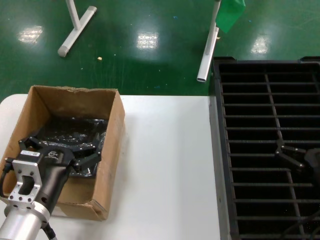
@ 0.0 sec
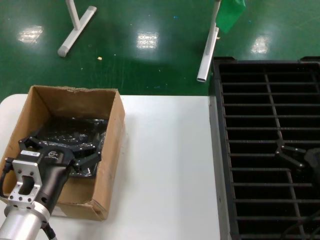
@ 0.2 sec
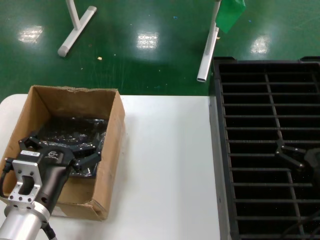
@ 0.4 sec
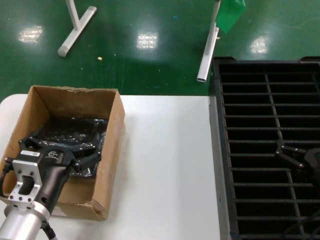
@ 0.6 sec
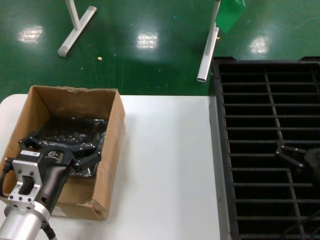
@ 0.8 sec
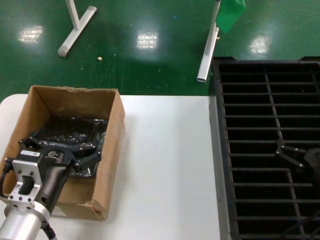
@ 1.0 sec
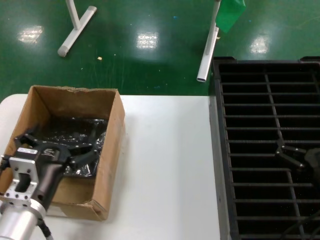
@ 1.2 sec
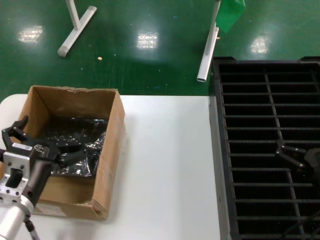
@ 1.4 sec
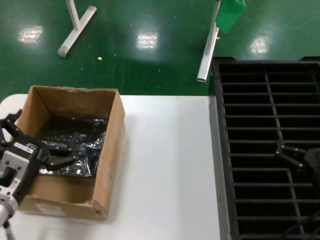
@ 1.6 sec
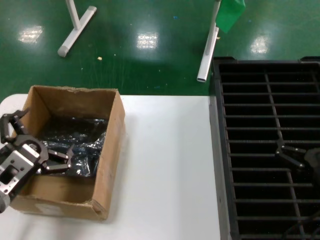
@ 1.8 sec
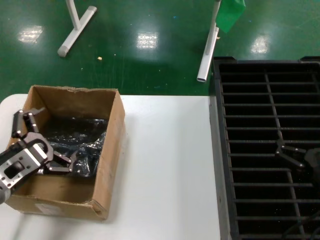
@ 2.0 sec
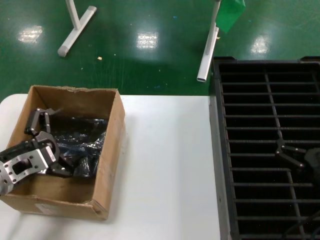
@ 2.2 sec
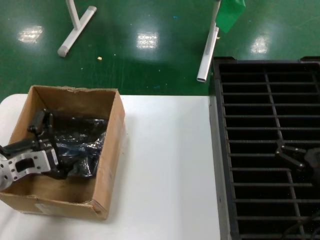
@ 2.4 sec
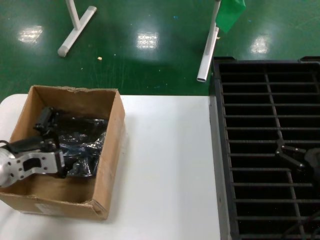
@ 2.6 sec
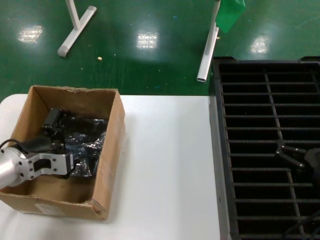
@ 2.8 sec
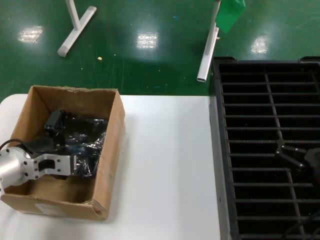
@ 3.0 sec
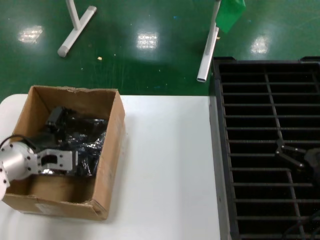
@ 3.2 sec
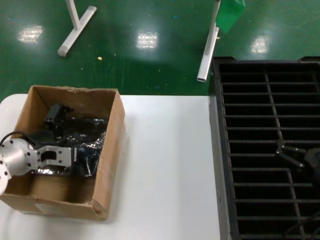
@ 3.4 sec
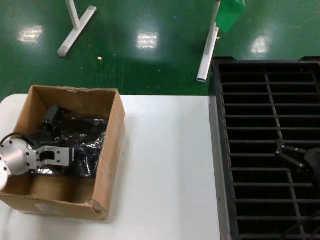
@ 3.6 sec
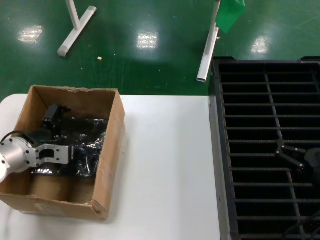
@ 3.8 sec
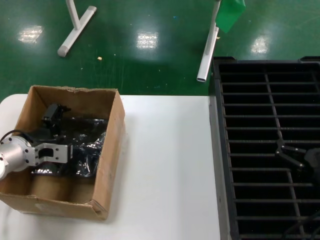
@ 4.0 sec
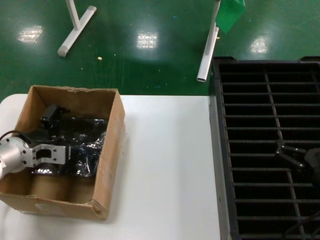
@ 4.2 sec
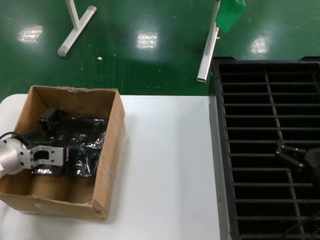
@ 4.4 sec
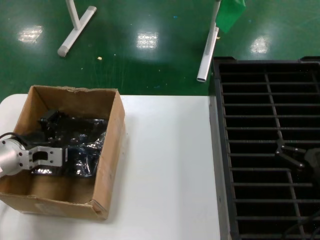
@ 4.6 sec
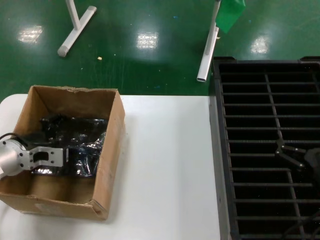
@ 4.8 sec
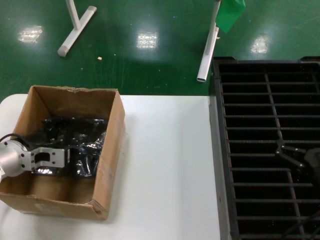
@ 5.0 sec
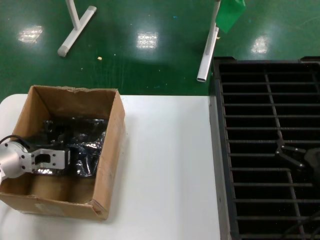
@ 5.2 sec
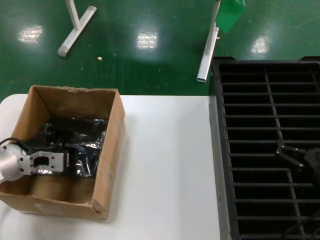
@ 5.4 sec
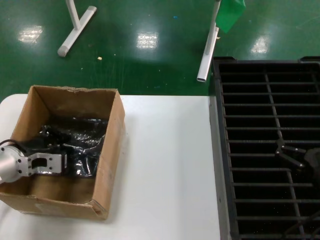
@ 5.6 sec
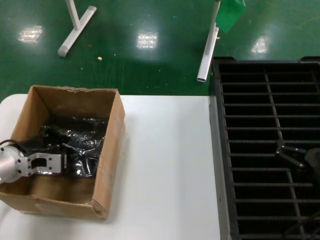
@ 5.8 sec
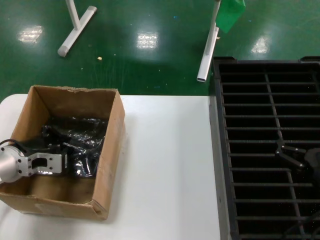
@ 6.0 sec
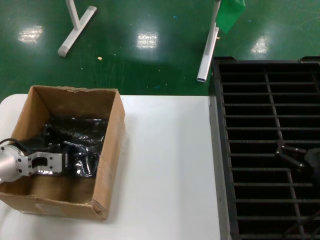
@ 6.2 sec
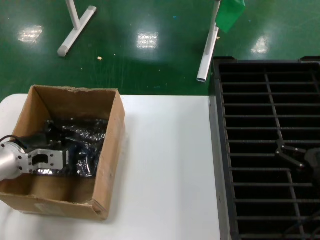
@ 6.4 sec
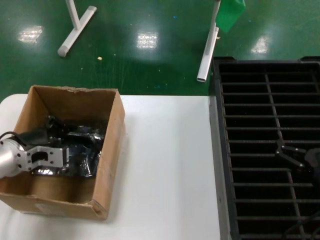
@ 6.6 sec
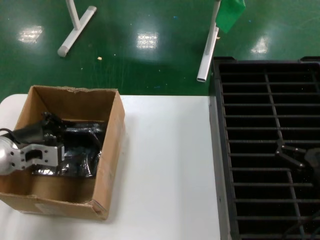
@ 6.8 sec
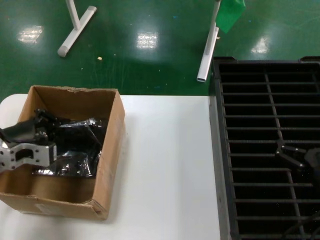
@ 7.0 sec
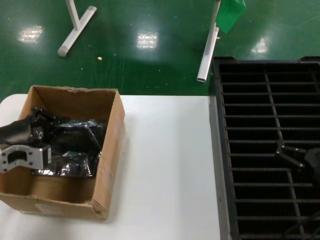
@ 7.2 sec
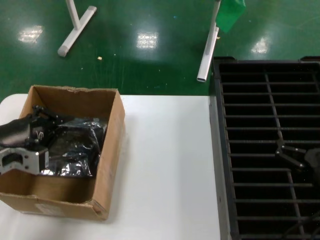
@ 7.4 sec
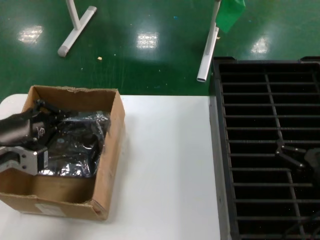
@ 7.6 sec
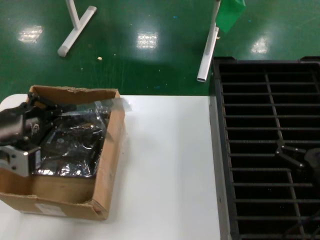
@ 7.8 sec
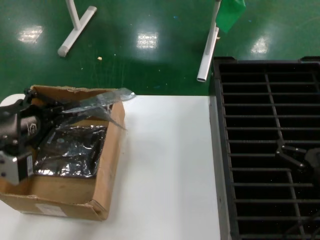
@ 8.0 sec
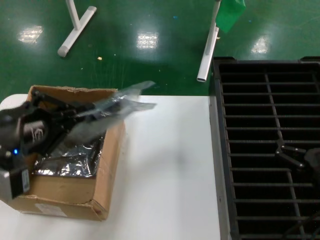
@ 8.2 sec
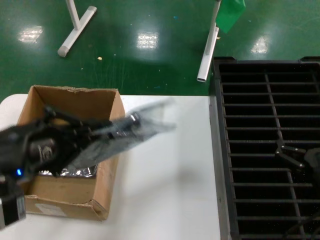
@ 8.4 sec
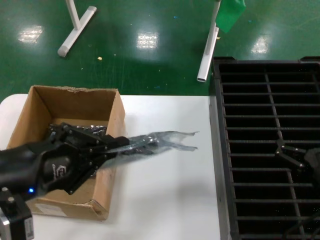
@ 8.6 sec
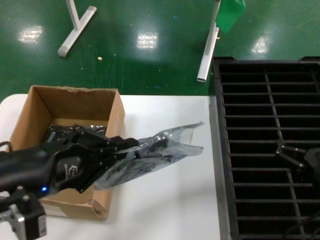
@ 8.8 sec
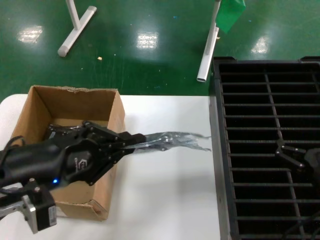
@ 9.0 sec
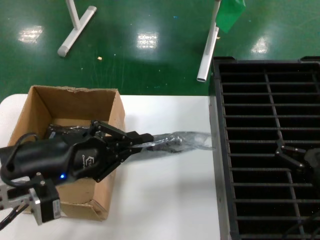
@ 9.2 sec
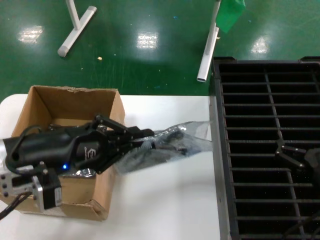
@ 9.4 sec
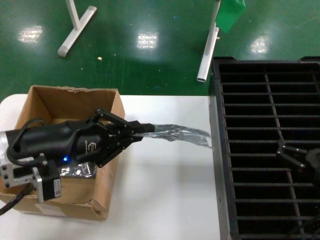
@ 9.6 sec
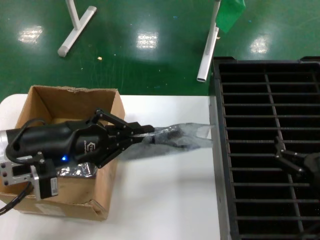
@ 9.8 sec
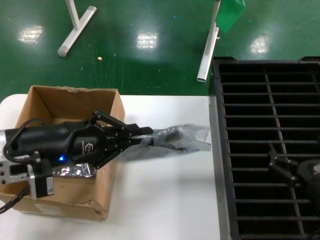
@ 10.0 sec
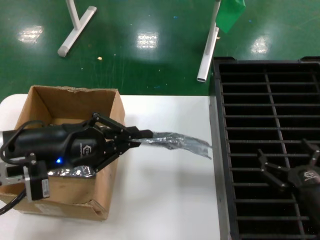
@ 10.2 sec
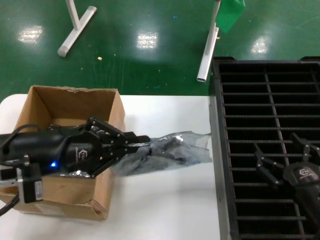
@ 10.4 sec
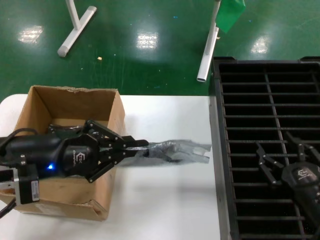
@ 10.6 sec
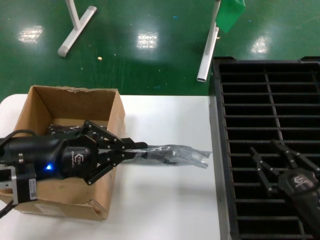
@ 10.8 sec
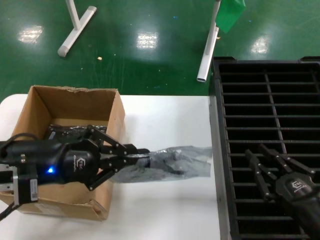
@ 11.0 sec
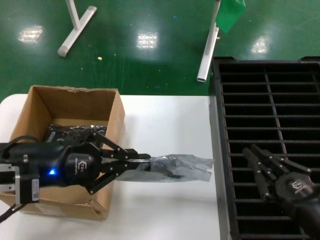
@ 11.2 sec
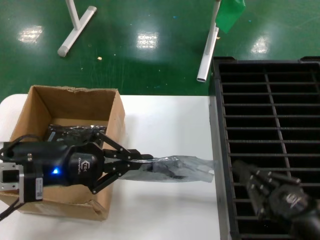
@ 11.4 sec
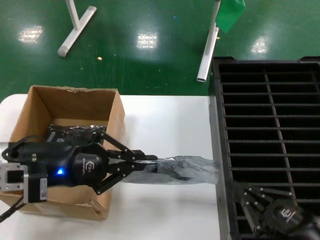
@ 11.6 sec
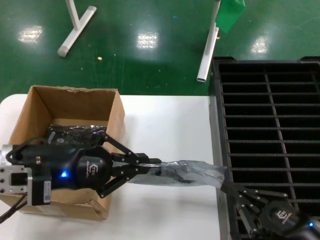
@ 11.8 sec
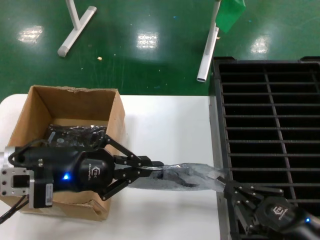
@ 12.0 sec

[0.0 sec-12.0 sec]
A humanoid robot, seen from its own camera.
Task of the whole recording: take out graphics card from box remove packaging put into black container.
Step, 0.0 sec to 5.8 sec: Grasp the bag.
Step, 6.0 sec to 9.8 sec: Lift the bag.
1.6 sec to 3.0 sec: The left hand travels forward by approximately 10 cm.
3.0 sec to 4.4 sec: The left hand shifts by approximately 5 cm.
4.4 sec to 6.0 sec: There are only small adjustments of the hands.
6.0 sec to 7.6 sec: The left hand goes approximately 15 cm upward and backward.
7.6 sec to 9.0 sec: The left hand heads backward, covering about 5 cm.
9.0 sec to 10.4 sec: The left hand goes about 10 cm forward.

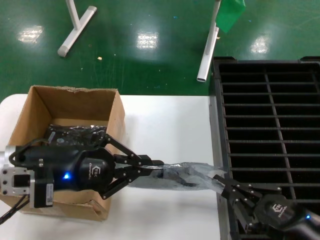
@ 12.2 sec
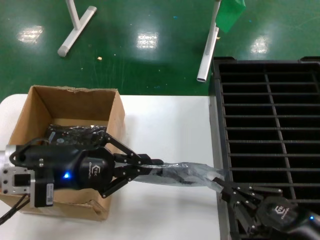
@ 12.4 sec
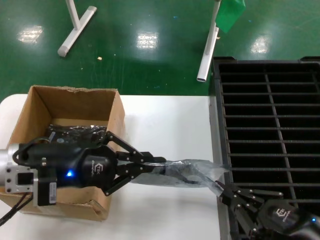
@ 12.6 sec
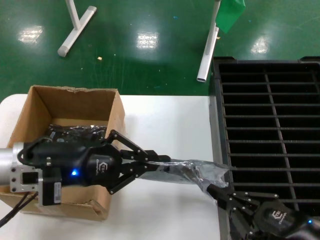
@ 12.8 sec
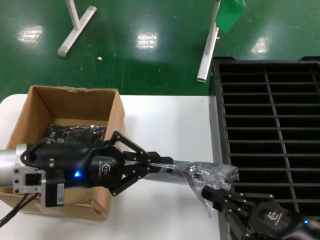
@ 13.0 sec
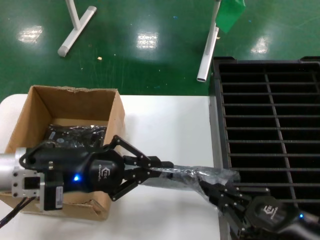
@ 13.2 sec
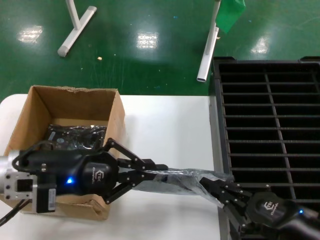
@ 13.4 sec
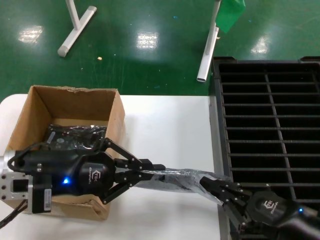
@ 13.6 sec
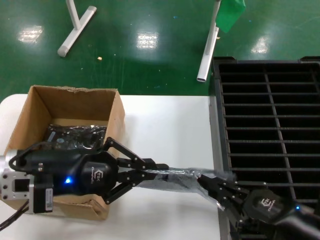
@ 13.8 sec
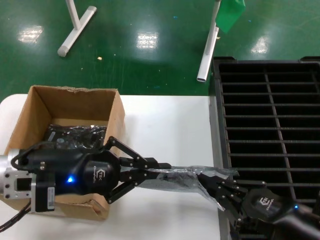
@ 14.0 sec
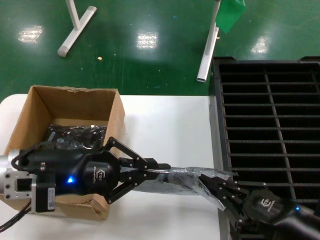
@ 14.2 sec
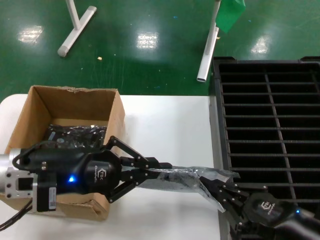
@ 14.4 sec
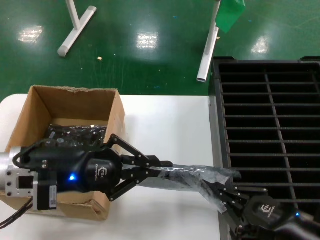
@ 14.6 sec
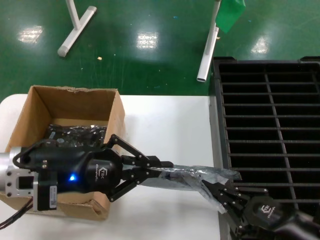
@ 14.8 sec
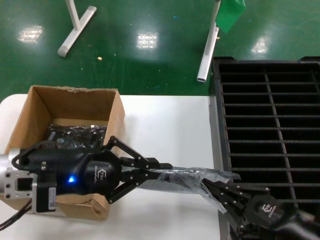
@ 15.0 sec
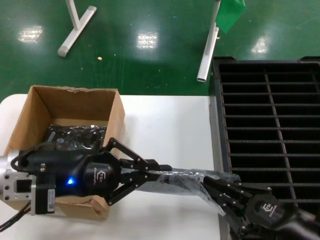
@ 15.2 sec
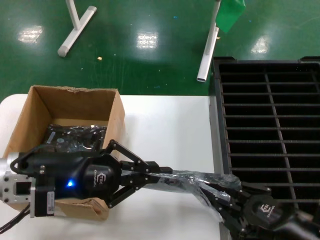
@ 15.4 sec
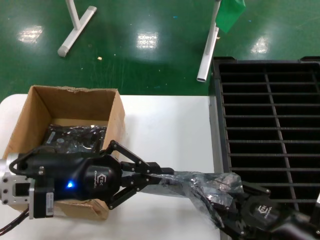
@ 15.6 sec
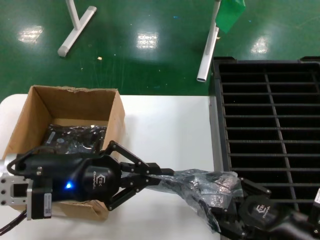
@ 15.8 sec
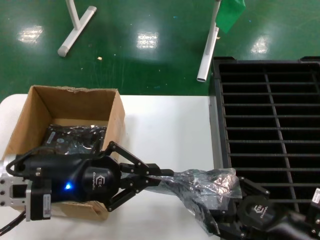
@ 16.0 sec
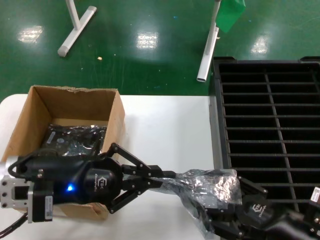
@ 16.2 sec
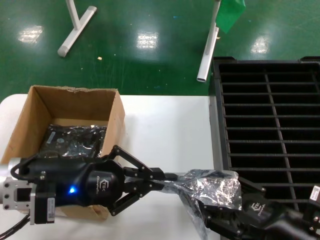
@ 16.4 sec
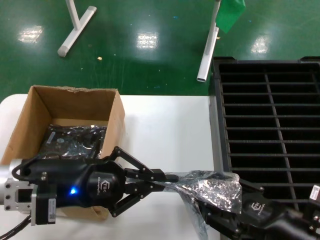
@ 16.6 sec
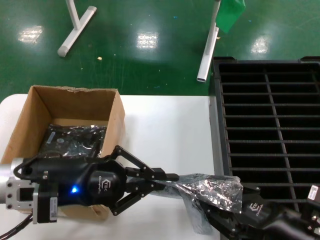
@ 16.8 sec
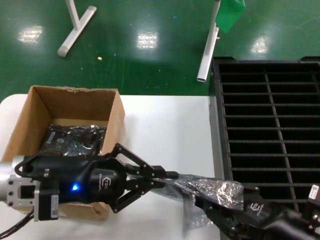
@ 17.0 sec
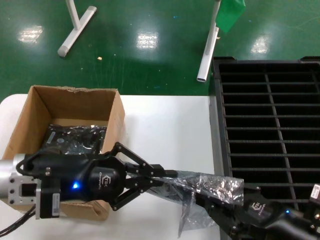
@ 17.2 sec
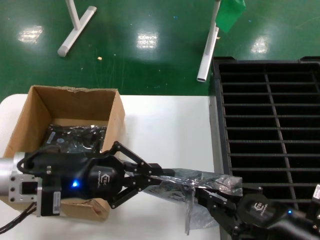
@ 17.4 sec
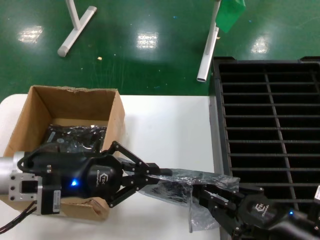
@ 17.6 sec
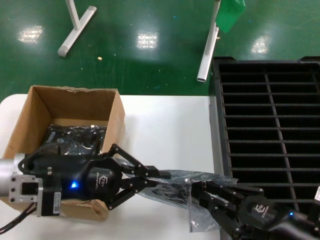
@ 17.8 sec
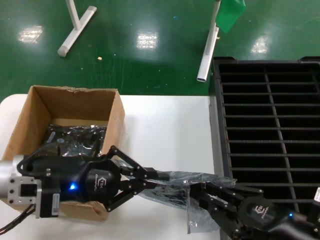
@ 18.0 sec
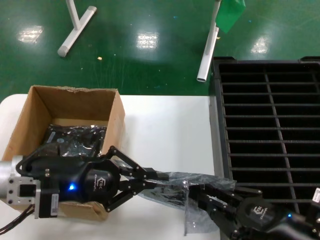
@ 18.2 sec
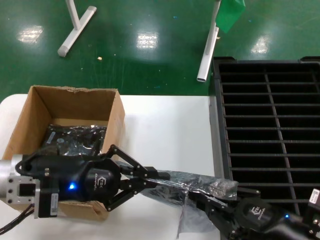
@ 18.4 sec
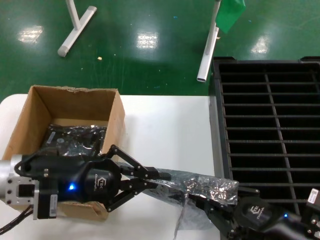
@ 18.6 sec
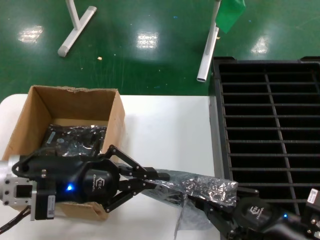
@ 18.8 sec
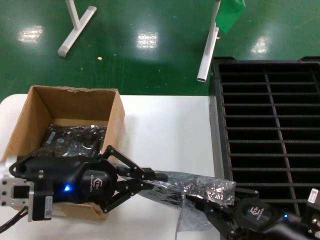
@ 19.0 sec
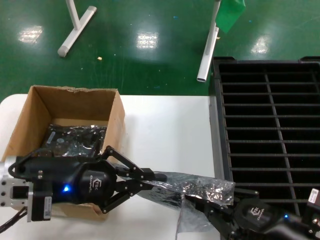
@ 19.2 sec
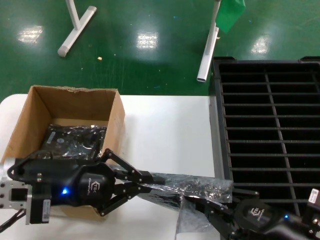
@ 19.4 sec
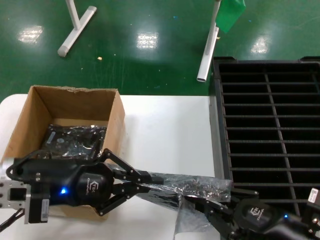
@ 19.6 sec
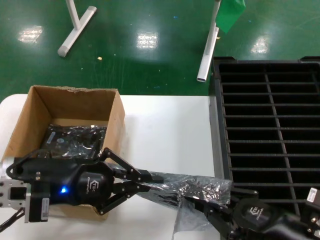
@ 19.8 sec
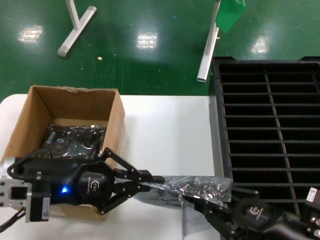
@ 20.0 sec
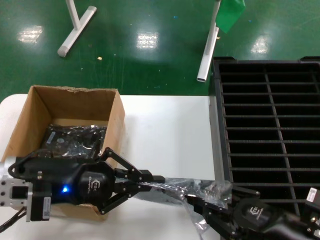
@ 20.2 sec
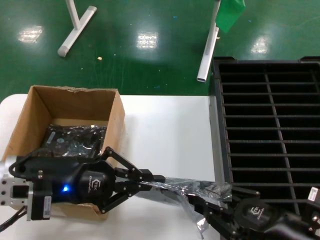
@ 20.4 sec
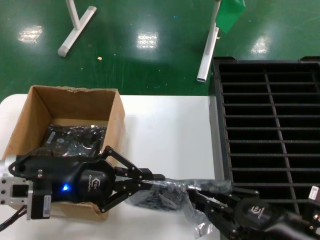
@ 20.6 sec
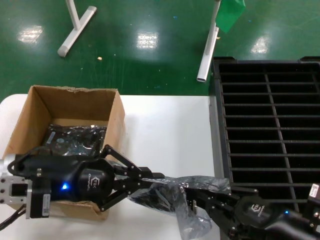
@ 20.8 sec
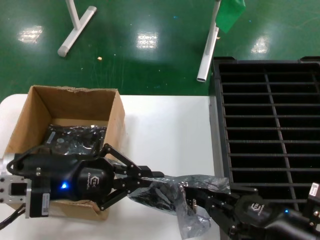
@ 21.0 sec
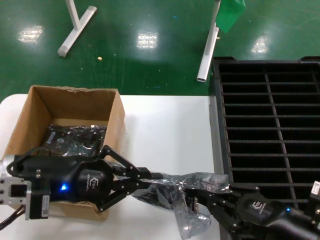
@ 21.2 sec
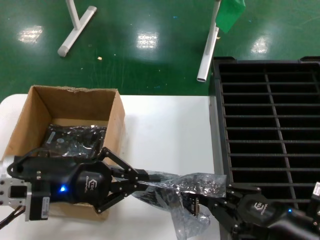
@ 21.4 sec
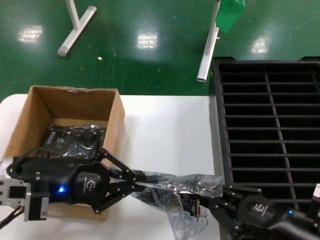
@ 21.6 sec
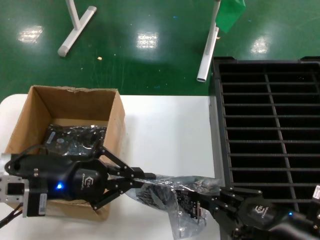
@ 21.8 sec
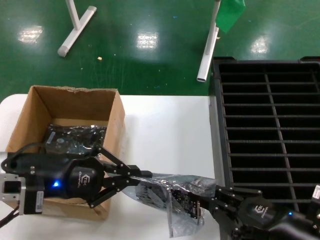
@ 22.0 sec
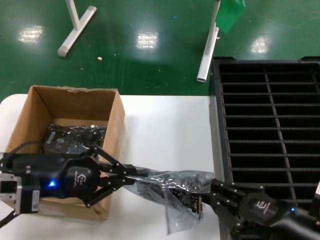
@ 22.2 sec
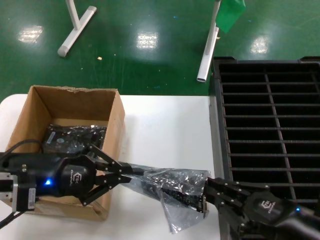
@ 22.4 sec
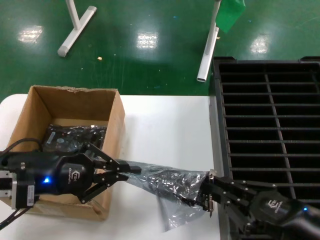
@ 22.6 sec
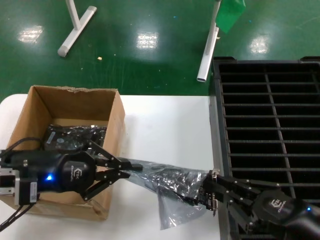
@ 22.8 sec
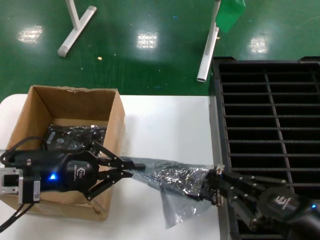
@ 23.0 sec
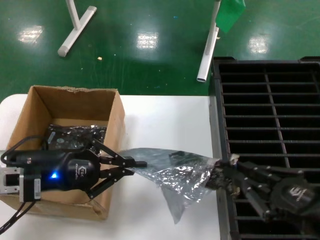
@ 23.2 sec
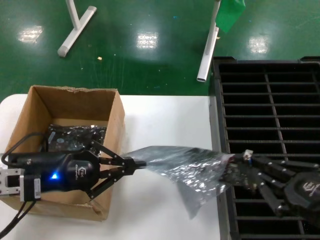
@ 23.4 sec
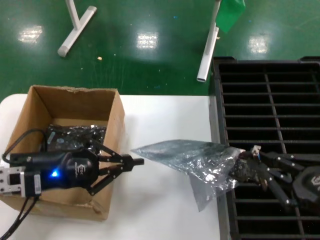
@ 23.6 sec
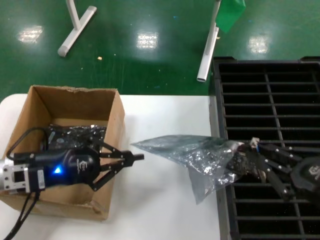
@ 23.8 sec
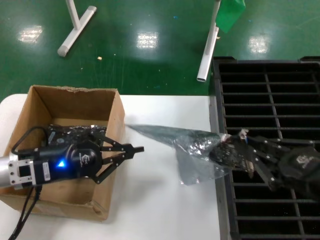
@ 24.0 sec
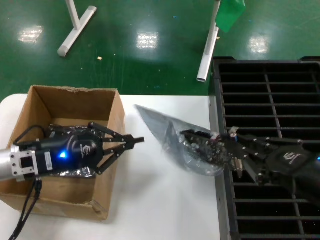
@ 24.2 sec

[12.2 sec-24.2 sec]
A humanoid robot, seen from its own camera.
Task of the whole recording: take out graphics card from box remove packaging put into black container.
12.2 sec to 13.8 sec: The hands make only small movements.
13.8 sec to 15.2 sec: Both hands stay about where they are.
15.2 sec to 18.2 sec: The hands stay close to where they were, moving slightly.
18.2 sec to 21.2 sec: The two hands keep their place.
21.2 sec to 22.6 sec: The hands stay close to where they were, moving slightly.
22.6 sec to 24.2 sec: The left hand heads forward and downward, covering approximately 10 cm; the right hand is displaced upward by some 10 cm.
